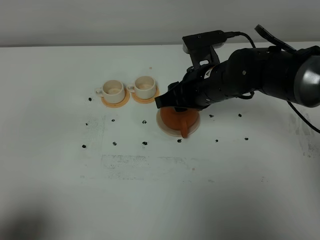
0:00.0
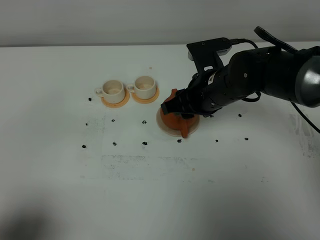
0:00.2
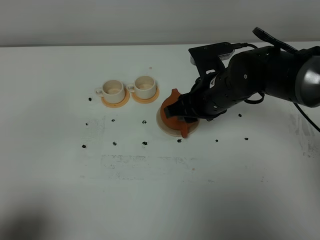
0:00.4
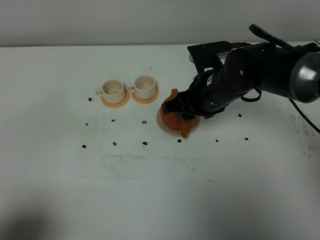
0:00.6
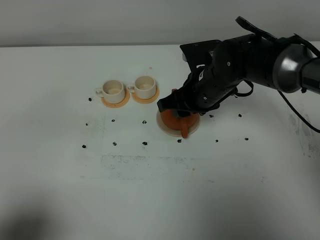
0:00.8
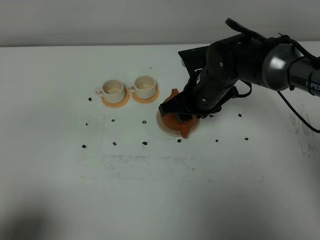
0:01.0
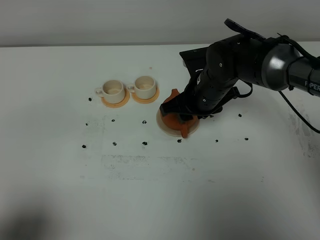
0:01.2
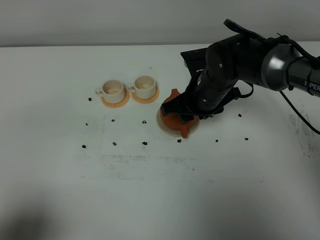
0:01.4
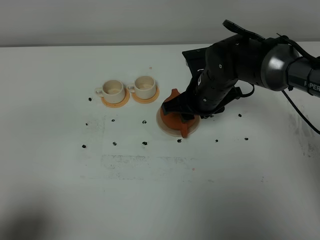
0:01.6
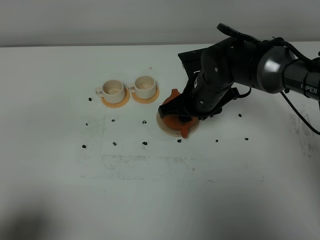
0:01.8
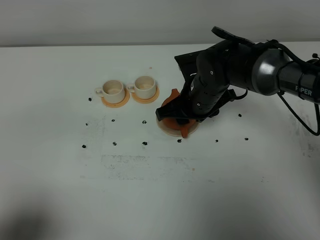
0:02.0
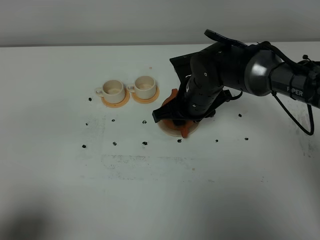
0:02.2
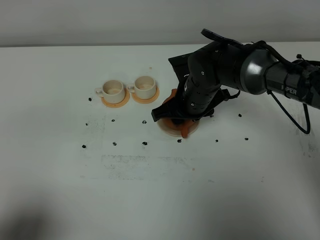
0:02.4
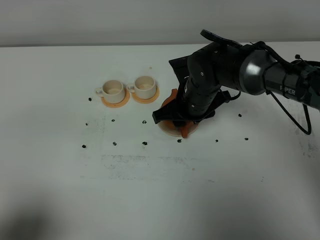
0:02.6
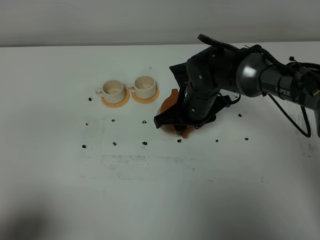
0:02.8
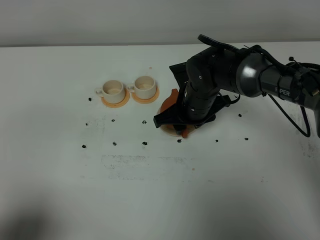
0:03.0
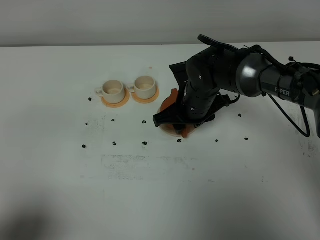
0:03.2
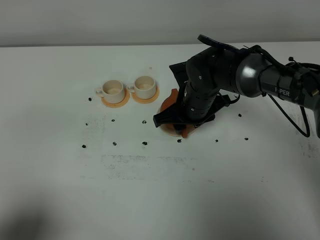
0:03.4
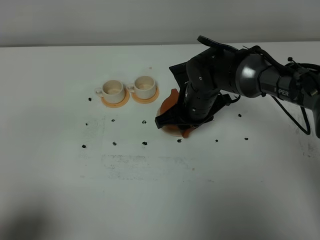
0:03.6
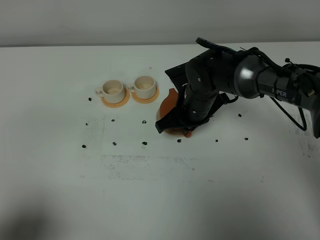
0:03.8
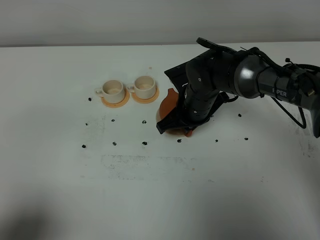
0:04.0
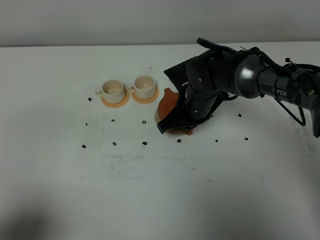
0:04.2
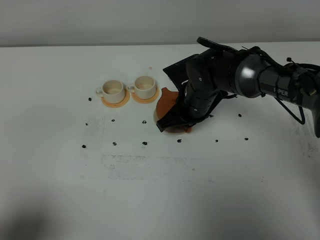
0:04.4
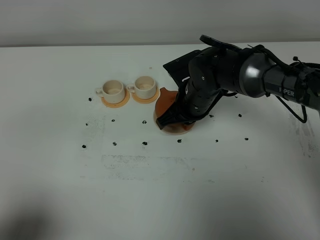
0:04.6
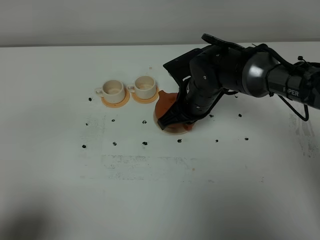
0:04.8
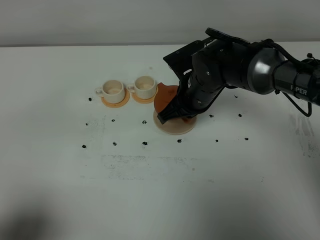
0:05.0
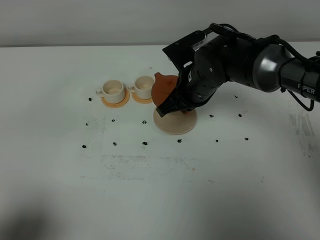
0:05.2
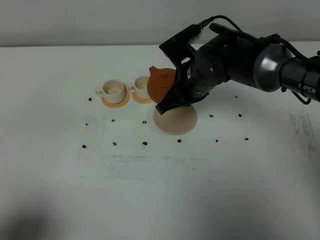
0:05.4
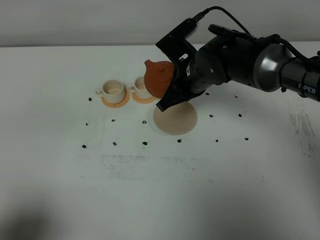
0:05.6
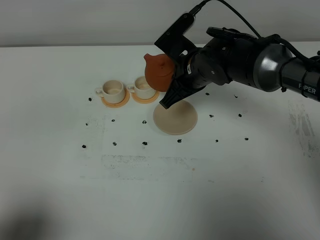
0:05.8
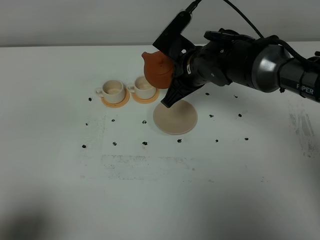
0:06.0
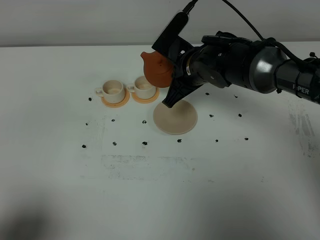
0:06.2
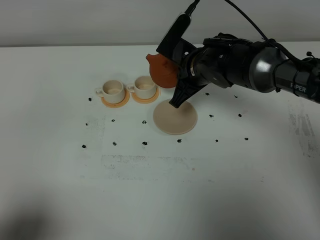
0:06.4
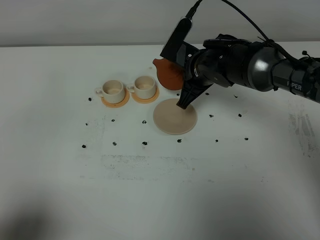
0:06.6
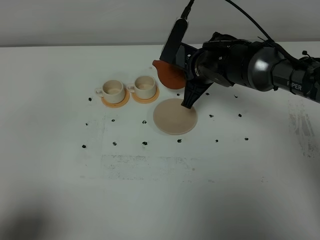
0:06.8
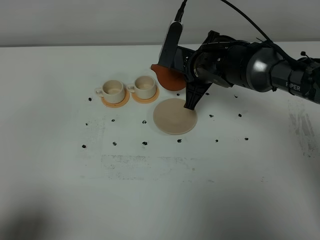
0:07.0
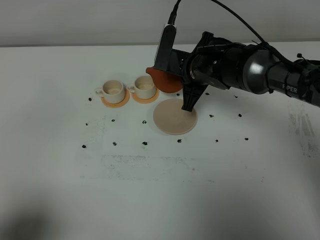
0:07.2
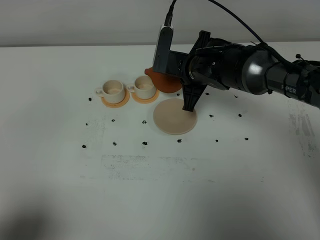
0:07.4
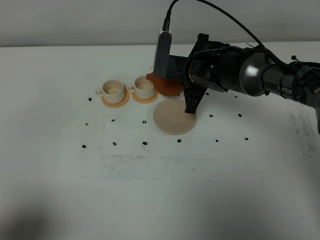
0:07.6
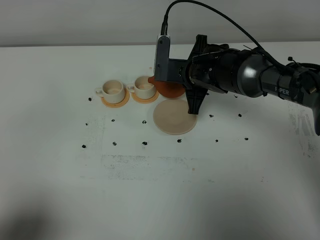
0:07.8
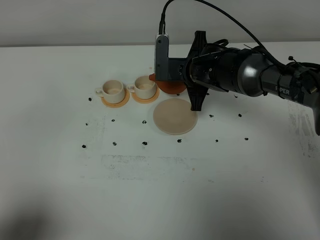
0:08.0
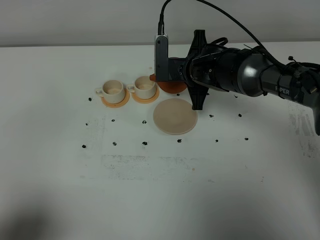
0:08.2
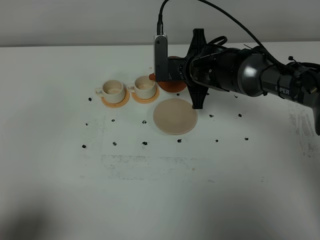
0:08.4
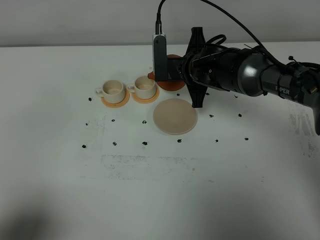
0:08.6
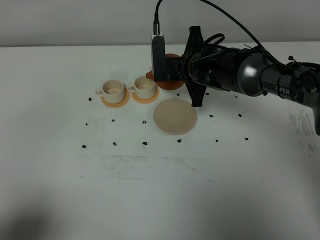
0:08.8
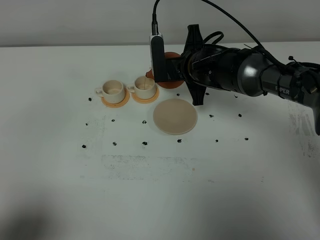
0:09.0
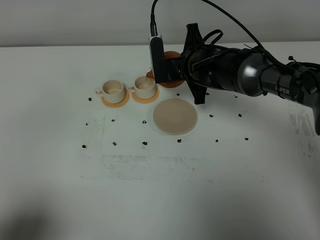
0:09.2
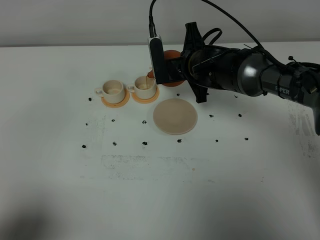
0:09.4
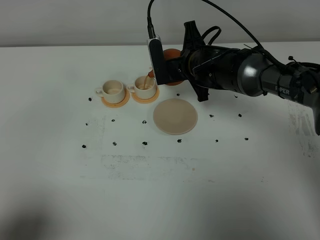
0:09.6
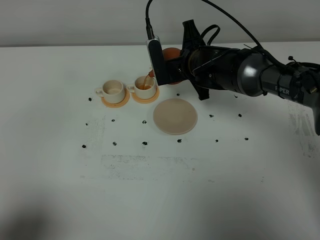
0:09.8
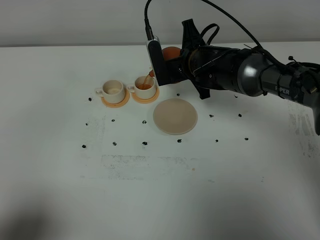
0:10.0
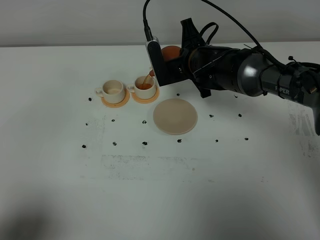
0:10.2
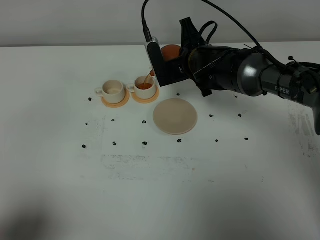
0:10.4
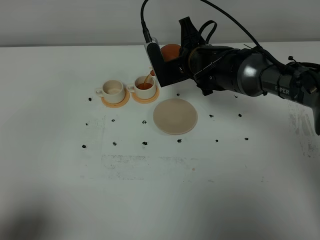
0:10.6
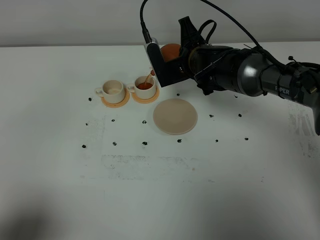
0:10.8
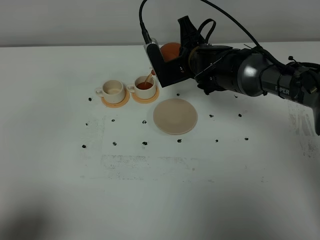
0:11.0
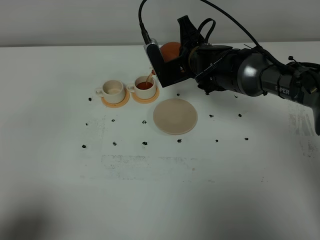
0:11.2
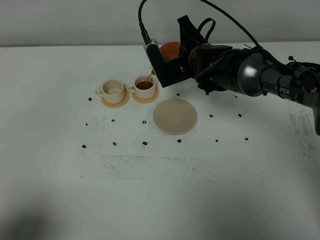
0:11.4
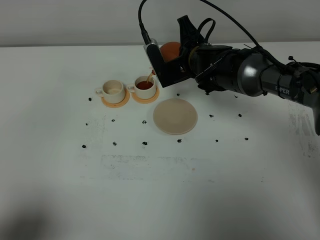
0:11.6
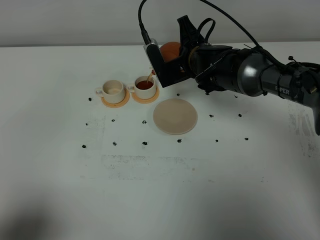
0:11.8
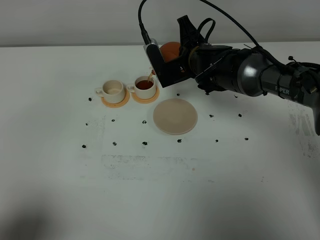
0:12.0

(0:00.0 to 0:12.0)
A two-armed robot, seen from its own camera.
Task of the whole recording: grasp the brown teapot and pour the tea into the two white teacups one by one, put the brown teapot back in its original place.
Step, 0:00.0 - 0:04.8: Pick up the teapot with the right gripper.
0:01.6 - 0:03.0: The grippers make only small movements.
0:03.0 - 0:04.4: The right gripper closes.
0:04.4 - 0:06.0: The right gripper moves upward, approximately 5 cm.
0:07.6 - 0:09.0: The grippers make only small movements.
0:09.0 - 0:10.4: The grippers move only a little.
0:10.4 - 0:12.0: Both grippers stay put.

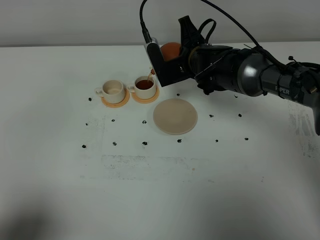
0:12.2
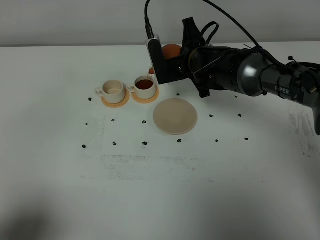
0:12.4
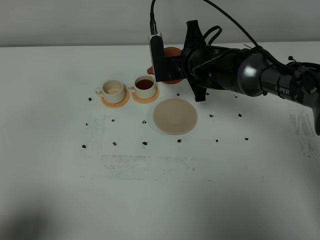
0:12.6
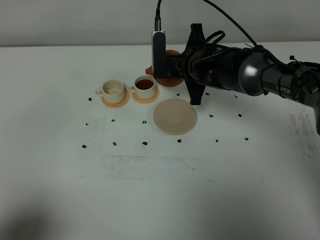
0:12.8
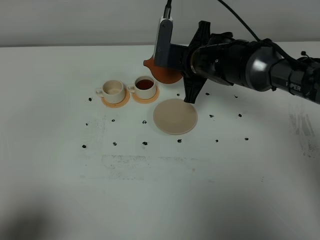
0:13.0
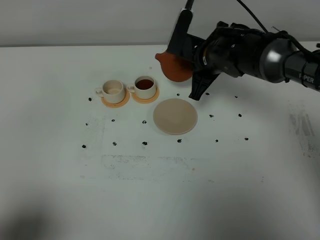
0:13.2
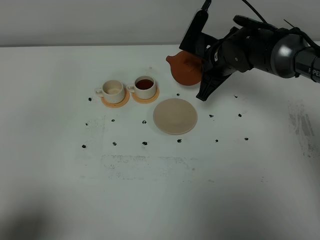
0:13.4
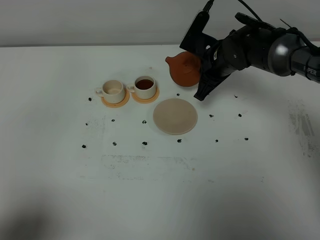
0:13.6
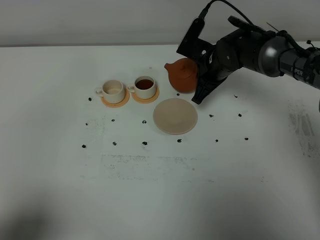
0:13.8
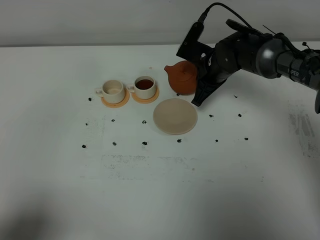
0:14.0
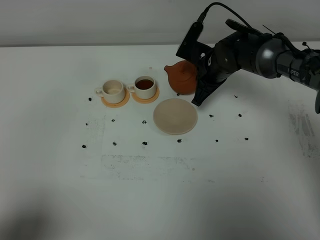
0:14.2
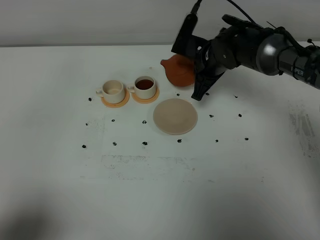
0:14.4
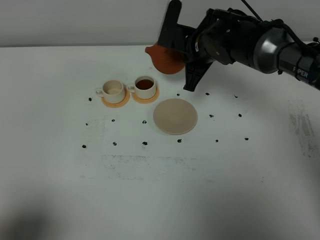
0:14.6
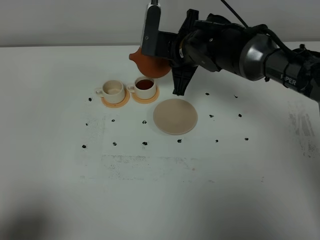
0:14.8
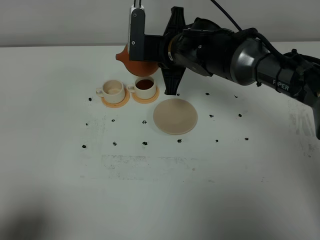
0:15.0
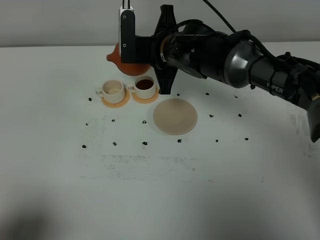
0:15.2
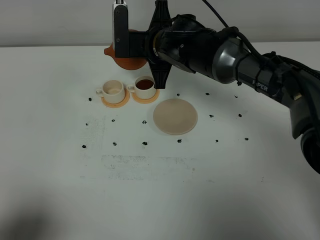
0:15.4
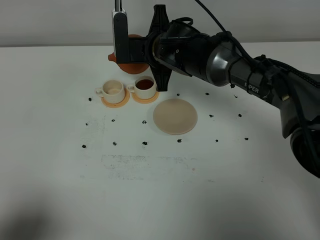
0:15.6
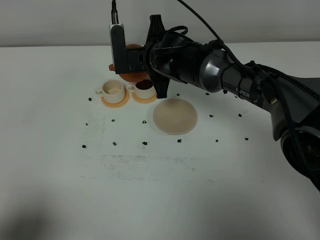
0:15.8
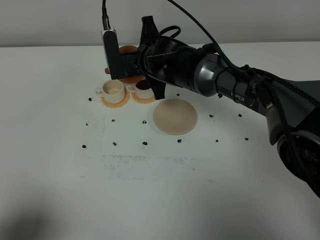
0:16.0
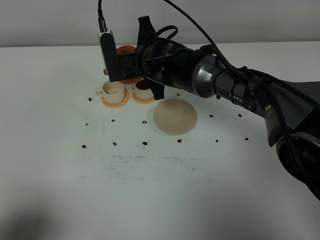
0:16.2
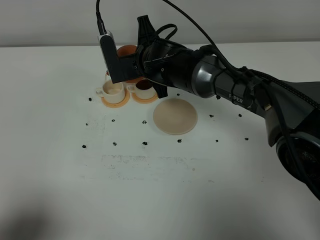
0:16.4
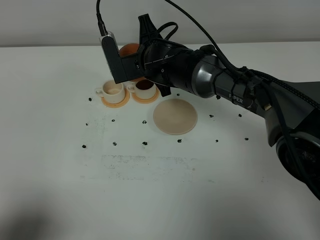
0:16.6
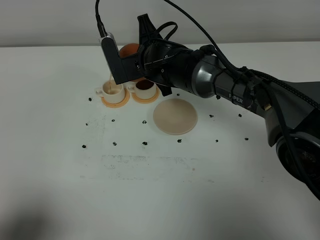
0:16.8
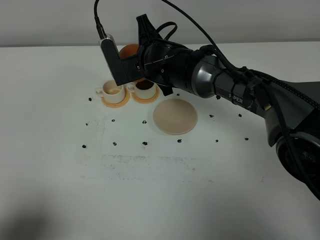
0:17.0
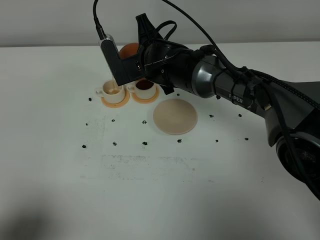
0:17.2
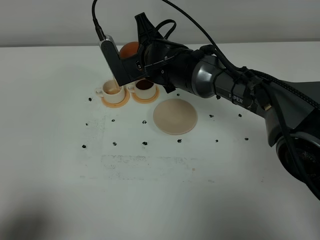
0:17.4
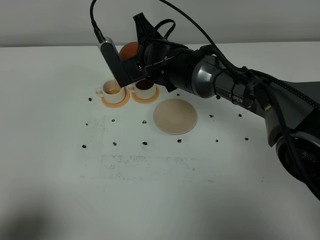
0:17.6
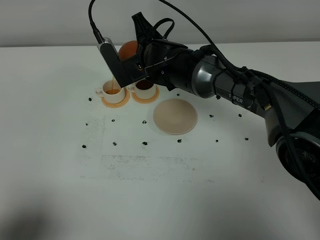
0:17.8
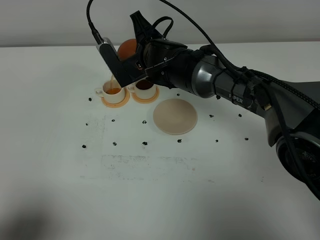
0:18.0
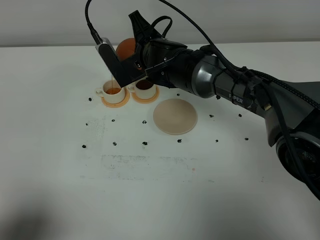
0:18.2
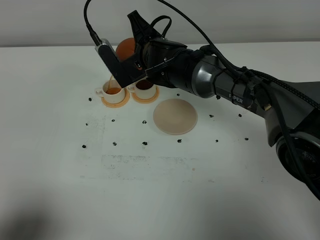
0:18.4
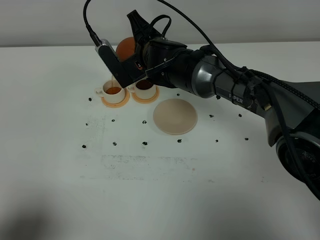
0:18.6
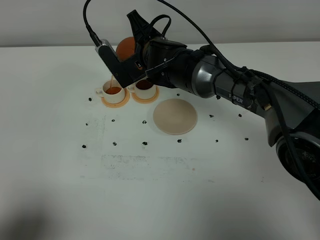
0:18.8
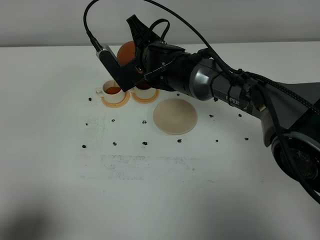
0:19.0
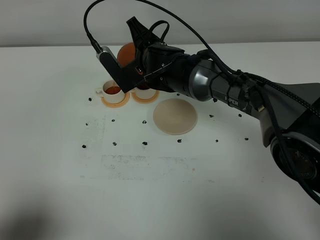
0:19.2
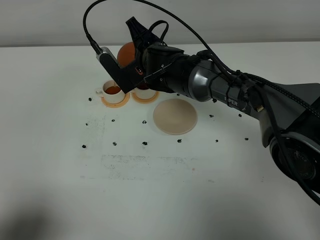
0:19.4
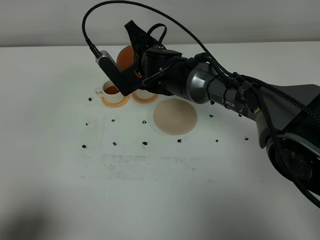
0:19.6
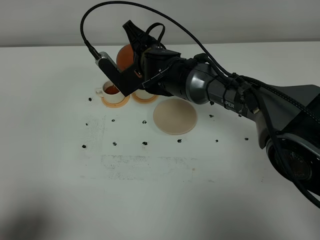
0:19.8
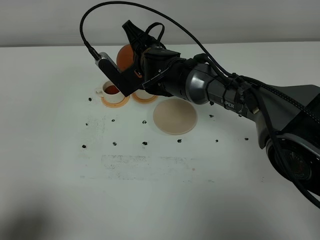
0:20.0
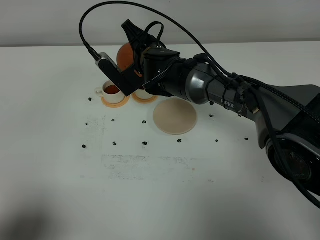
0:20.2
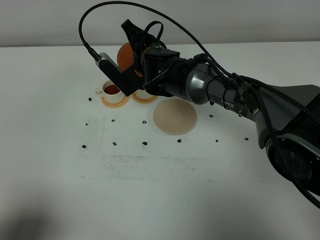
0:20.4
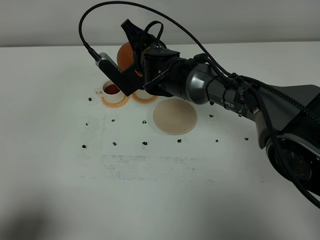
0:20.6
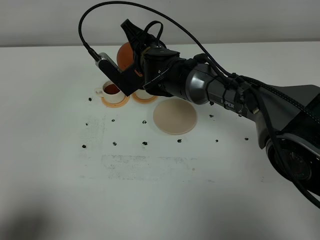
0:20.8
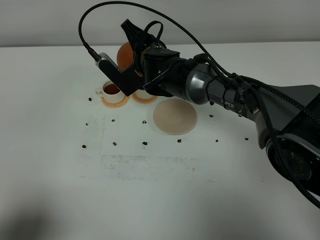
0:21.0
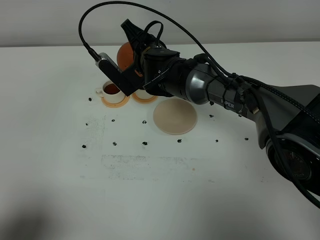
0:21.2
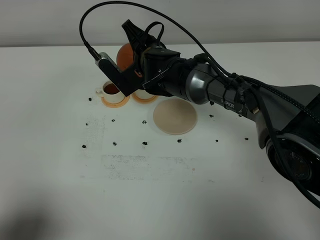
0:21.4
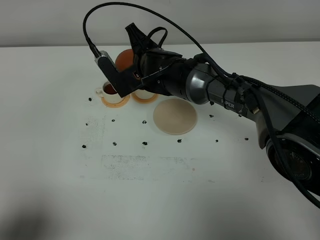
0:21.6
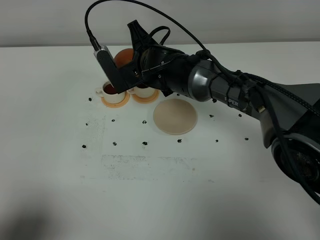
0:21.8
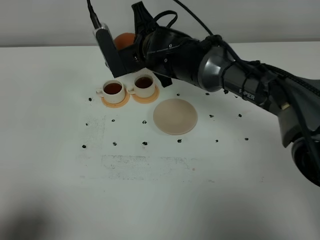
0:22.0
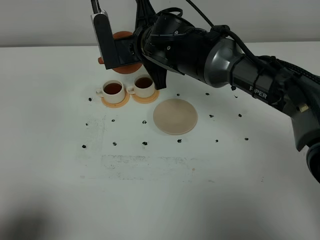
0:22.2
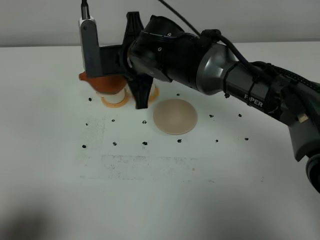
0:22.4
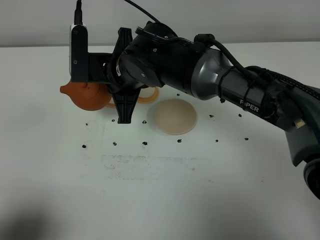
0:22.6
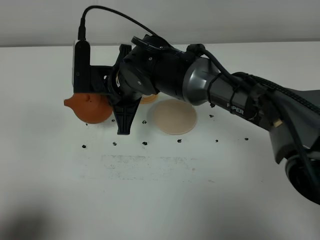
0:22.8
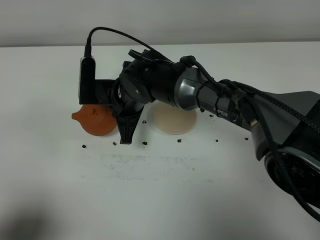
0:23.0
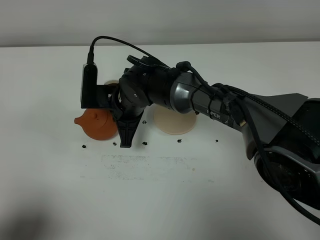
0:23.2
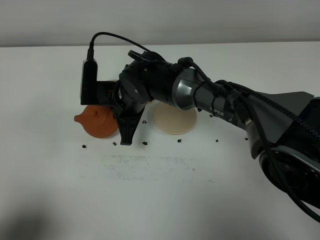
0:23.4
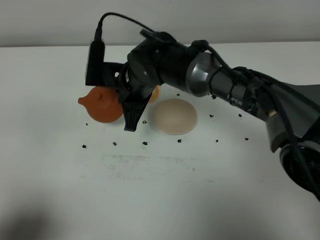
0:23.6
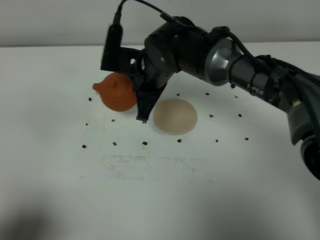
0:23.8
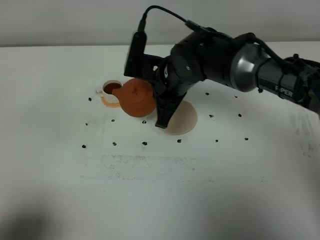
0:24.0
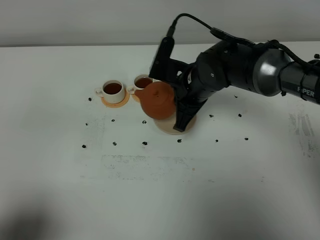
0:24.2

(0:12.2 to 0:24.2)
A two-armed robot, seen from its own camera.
Task of the whole recording: grasp the brown teapot and pour the tea into the two white teacups one by one, put the brown teapot back in its original place.
Step, 0:13.0 - 0:21.8: Pour tea into the teacup with the right gripper.
0:12.2 - 0:13.8: The right gripper changes place by roughly 5 cm.
0:13.8 - 0:15.2: The right gripper shifts some 15 cm to the left, upward and backward.
0:15.2 - 0:16.6: There are only small adjustments of the grippers.
0:16.6 - 0:18.2: The grippers make only small movements.
0:18.2 - 0:19.8: There are only small adjustments of the grippers.
0:19.8 - 0:21.2: Both grippers stay put.
0:21.2 - 0:22.6: The right gripper goes about 10 cm backward and upward.
0:22.6 - 0:24.2: The right gripper moves to the right and downward, about 15 cm.
